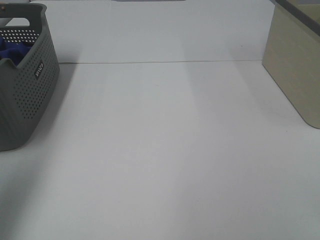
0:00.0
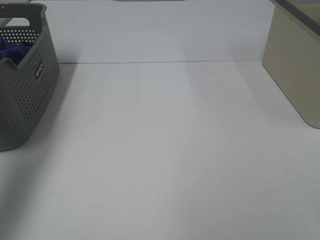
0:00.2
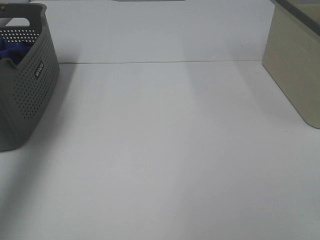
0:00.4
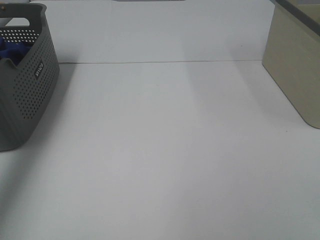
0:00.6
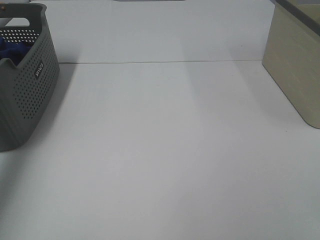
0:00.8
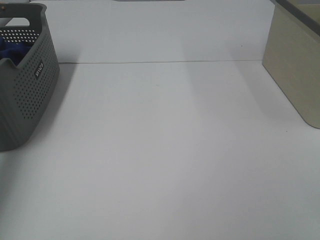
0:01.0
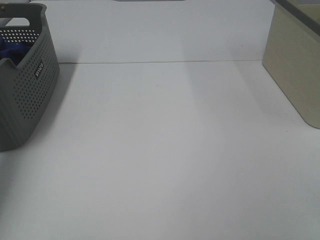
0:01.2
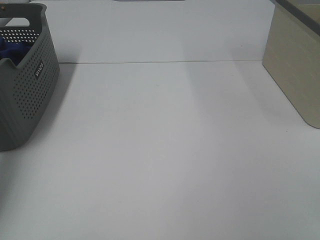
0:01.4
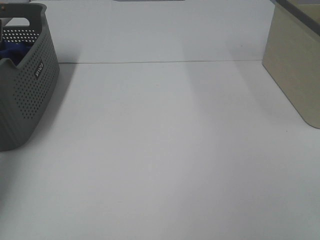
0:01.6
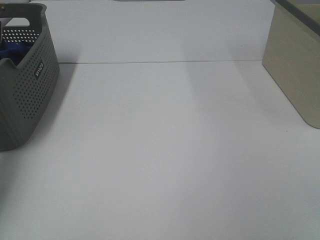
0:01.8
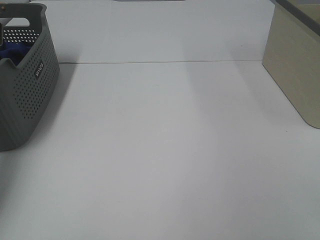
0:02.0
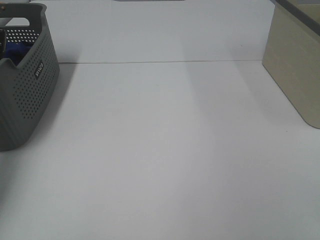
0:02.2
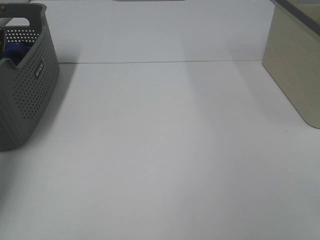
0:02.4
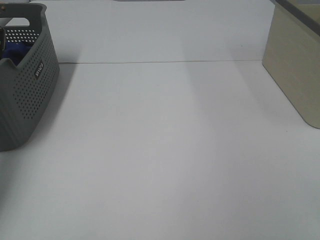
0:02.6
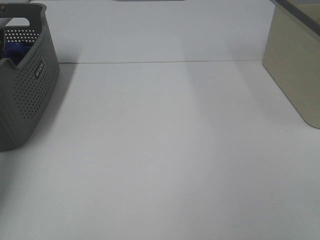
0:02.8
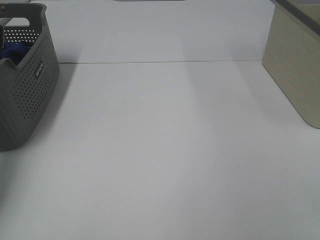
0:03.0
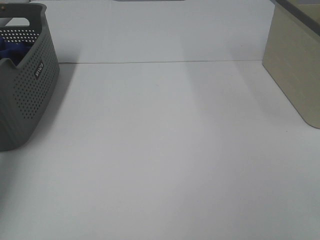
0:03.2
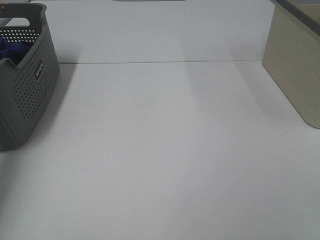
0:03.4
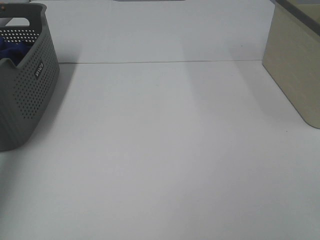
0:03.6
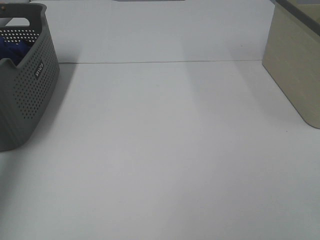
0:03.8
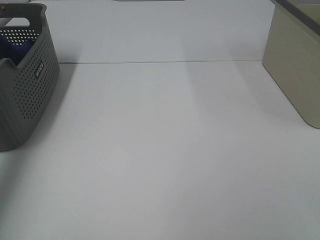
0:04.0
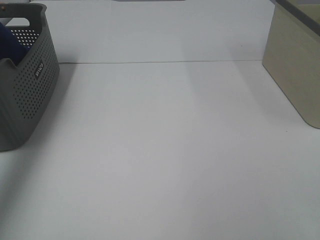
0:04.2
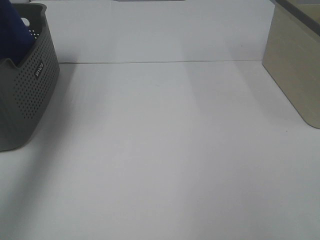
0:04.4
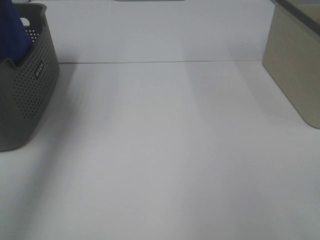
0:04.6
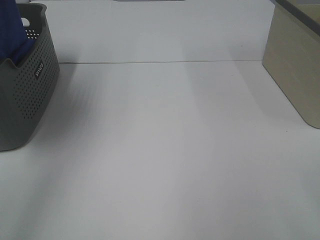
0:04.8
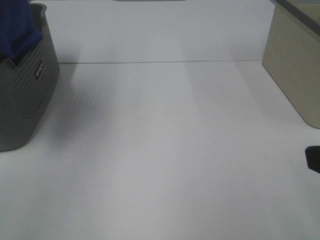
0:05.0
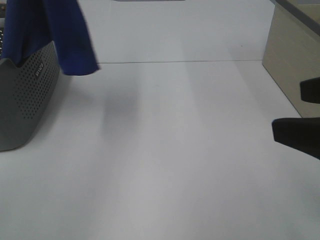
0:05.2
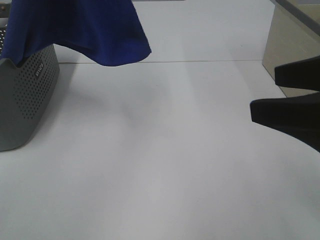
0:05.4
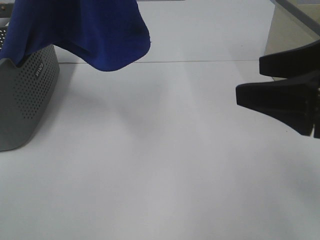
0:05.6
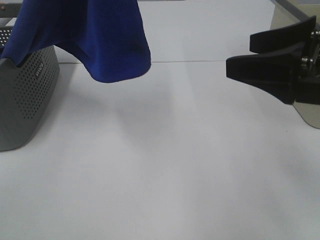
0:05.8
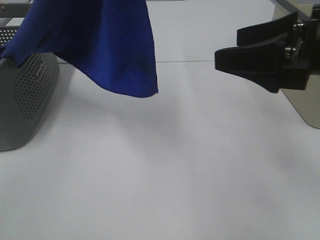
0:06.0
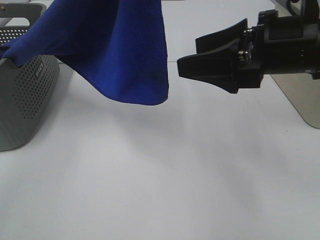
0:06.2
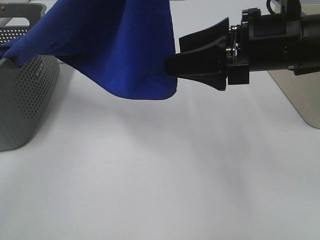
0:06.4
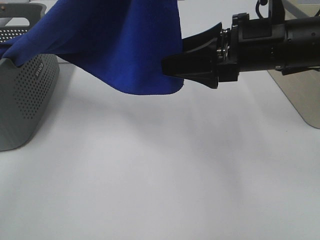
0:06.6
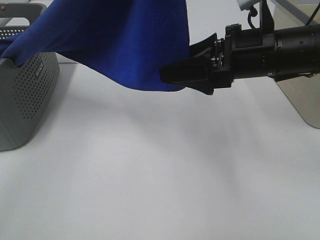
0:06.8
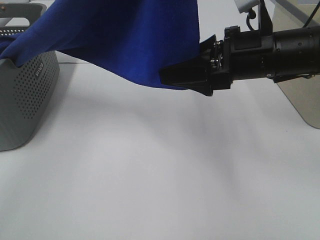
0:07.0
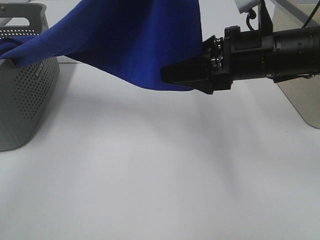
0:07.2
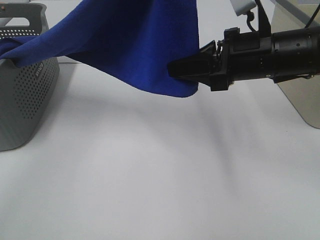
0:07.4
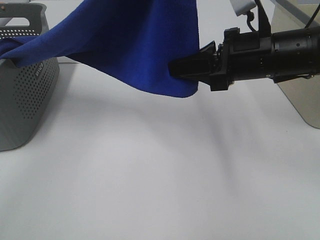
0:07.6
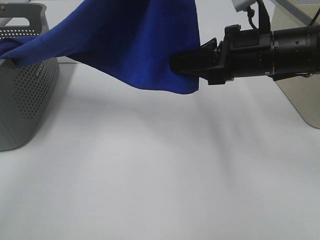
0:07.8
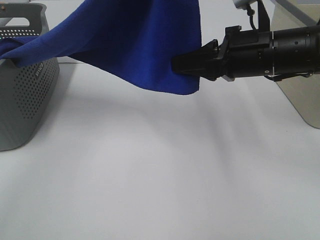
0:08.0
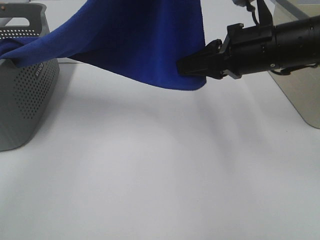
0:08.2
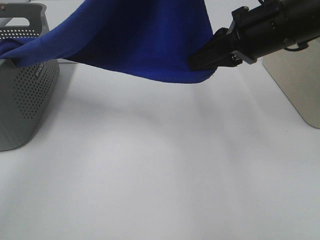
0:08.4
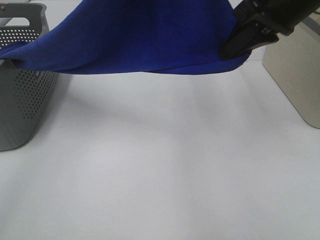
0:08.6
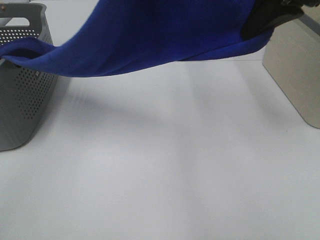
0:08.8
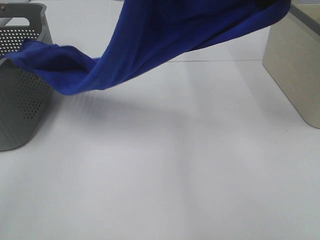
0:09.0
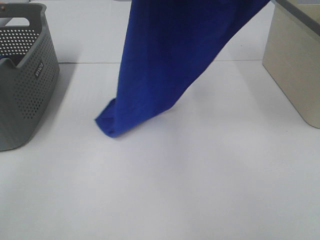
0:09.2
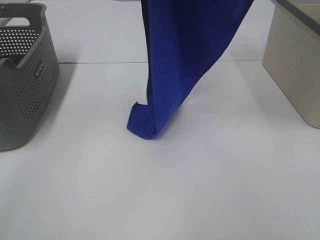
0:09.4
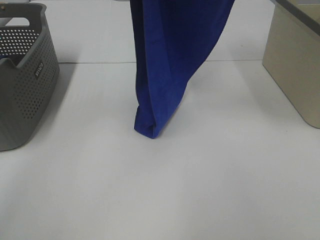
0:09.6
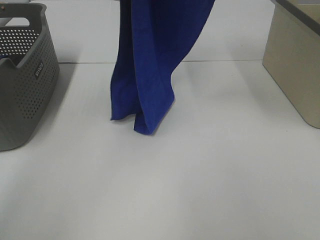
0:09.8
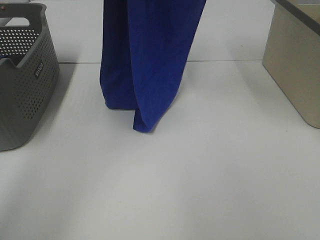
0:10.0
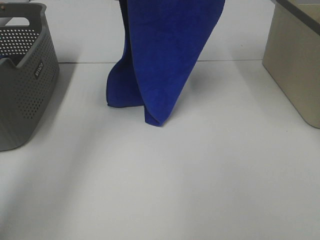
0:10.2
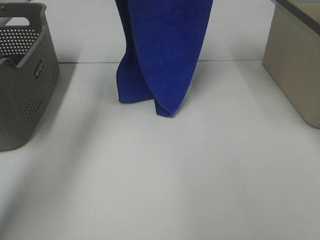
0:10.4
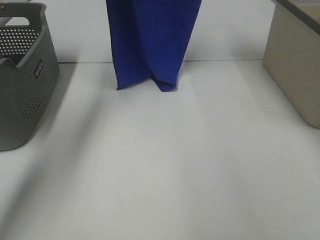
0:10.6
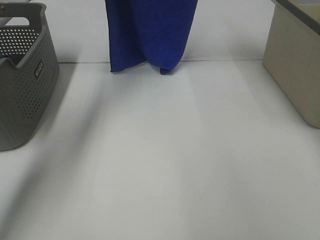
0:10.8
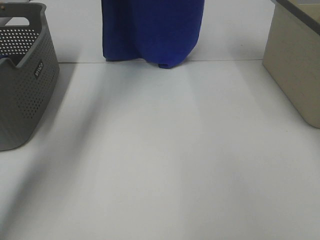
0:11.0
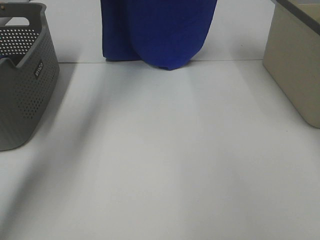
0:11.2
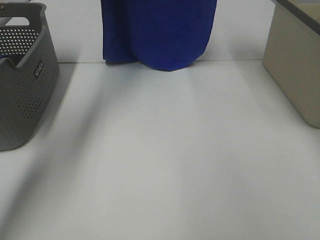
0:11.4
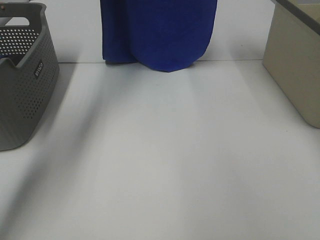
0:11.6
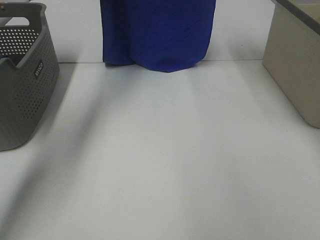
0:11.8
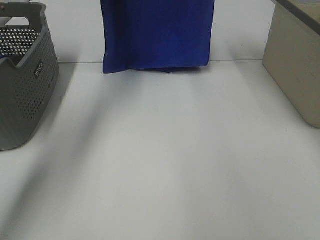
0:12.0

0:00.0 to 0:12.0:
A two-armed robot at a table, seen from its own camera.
Task of the whole recording: Remove the towel and place it.
Step, 0:04.0 to 0:08.2: Right hand: grab a corner of the blue towel and straighten it.
0:00.0 to 0:01.6: The left gripper is displaced forward and downward by some 30 cm.
0:03.0 to 0:04.4: The left gripper travels upward by some 25 cm.
0:04.4 to 0:06.0: The right gripper moves forward, about 20 cm. The left gripper shifts about 25 cm to the right and backward.
0:06.0 to 0:07.6: The right gripper moves forward, downward and to the left, about 10 cm, and closes its fingers. The left gripper ends up approximately 5 cm from where it was.
0:07.6 to 0:09.0: The right gripper travels upward by about 20 cm.
0:09.0 to 0:10.4: The right gripper travels forward by roughly 15 cm, while the left gripper shifts about 25 cm forward and to the left.
0:10.4 to 0:12.0: The left gripper changes place by about 5 cm.

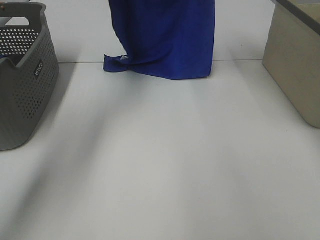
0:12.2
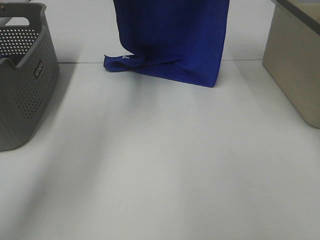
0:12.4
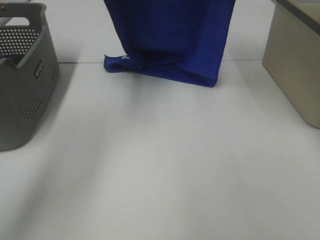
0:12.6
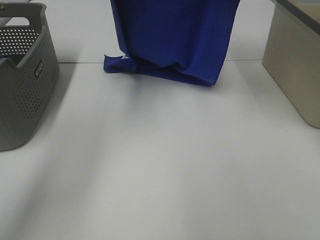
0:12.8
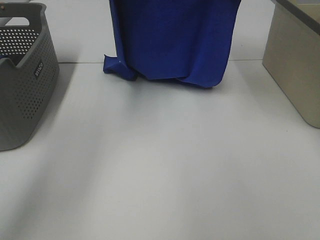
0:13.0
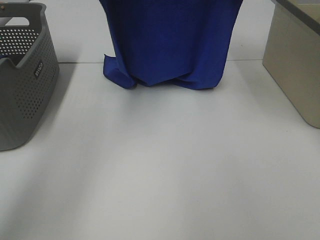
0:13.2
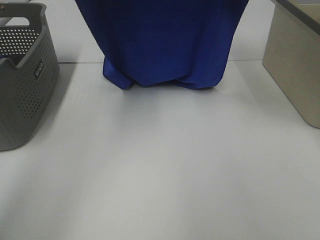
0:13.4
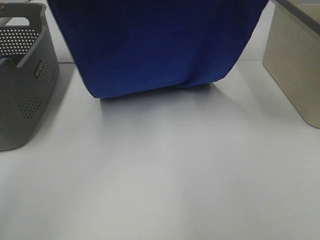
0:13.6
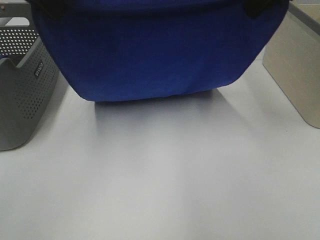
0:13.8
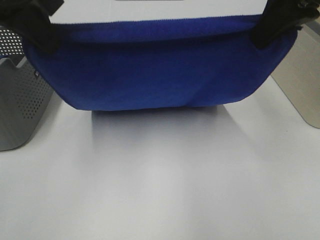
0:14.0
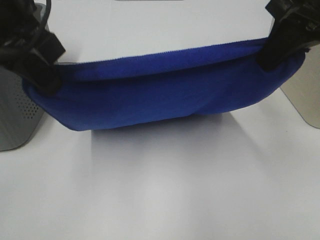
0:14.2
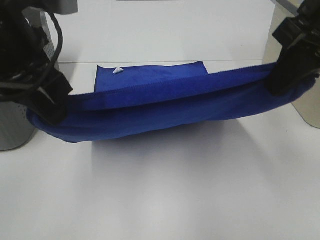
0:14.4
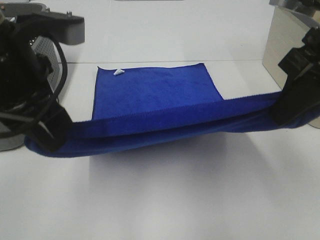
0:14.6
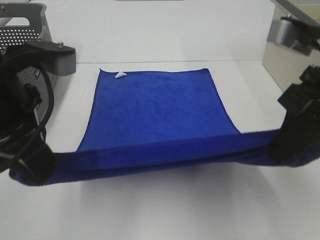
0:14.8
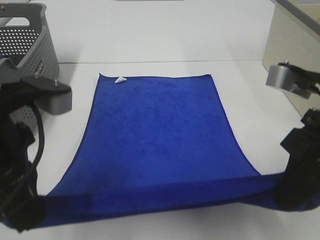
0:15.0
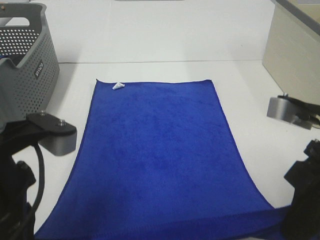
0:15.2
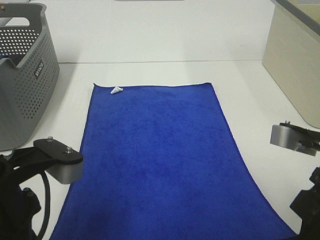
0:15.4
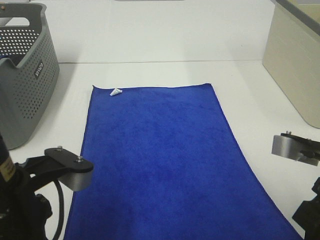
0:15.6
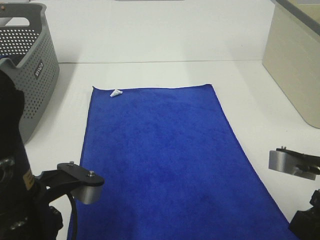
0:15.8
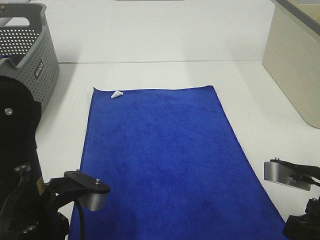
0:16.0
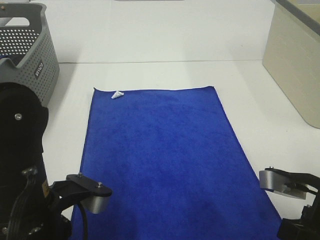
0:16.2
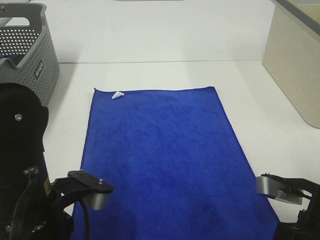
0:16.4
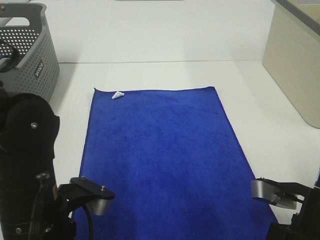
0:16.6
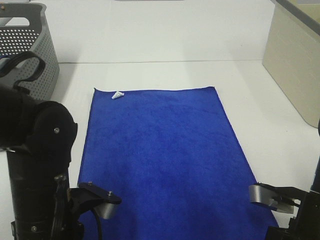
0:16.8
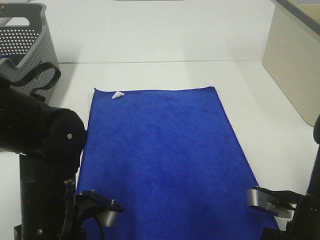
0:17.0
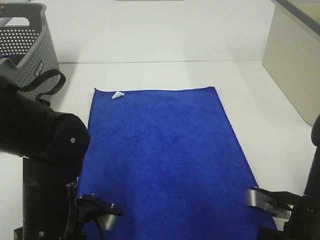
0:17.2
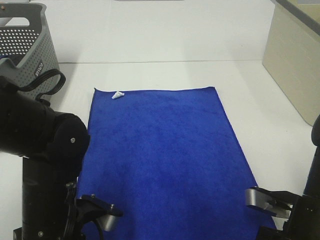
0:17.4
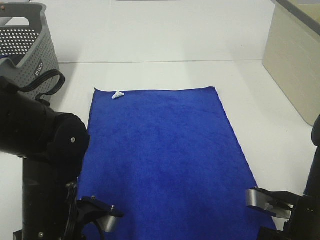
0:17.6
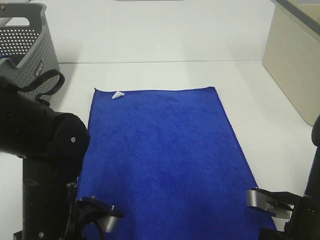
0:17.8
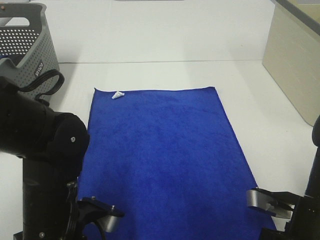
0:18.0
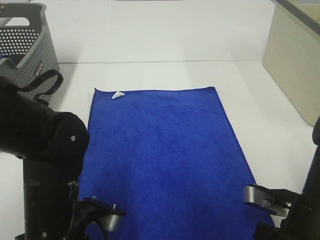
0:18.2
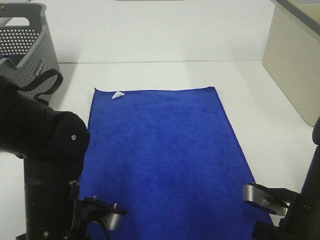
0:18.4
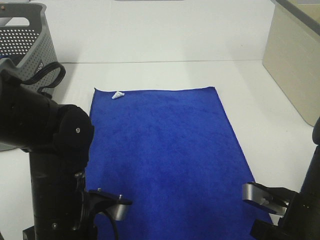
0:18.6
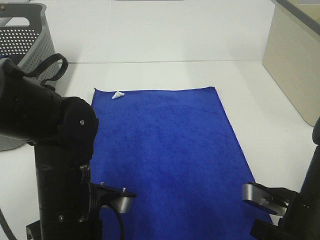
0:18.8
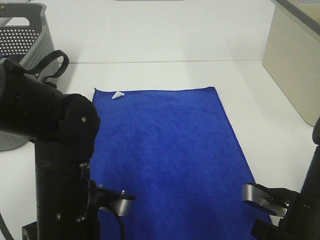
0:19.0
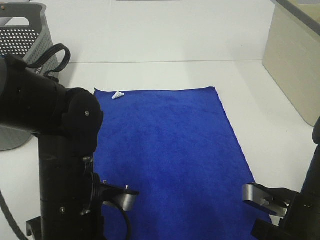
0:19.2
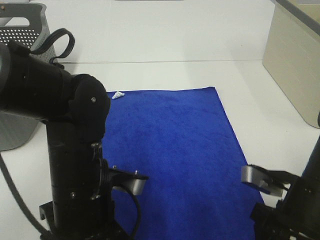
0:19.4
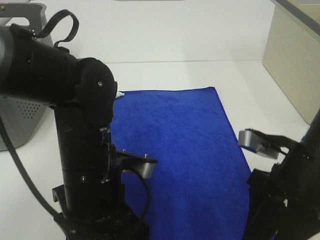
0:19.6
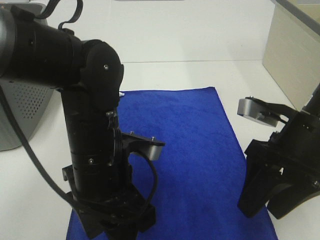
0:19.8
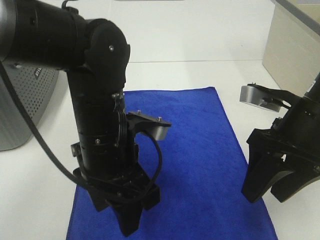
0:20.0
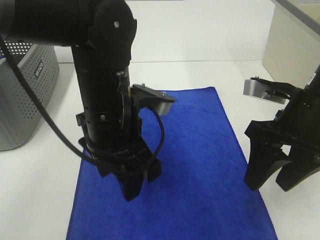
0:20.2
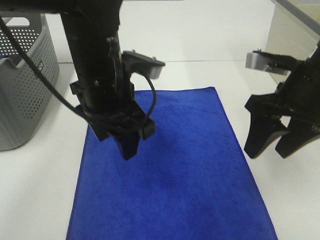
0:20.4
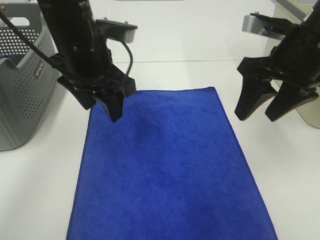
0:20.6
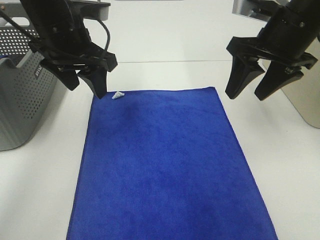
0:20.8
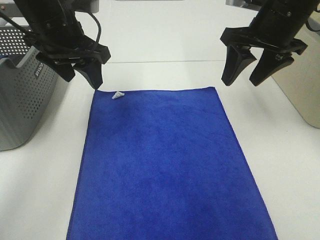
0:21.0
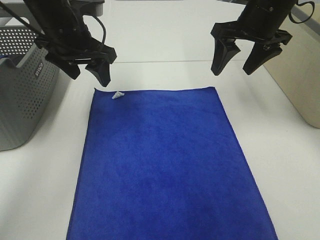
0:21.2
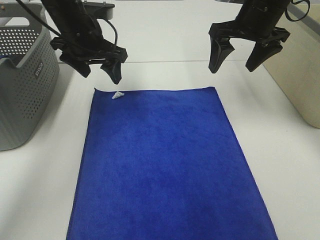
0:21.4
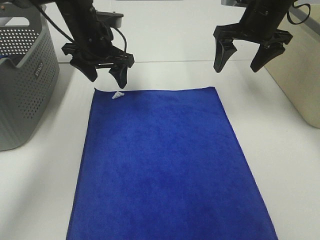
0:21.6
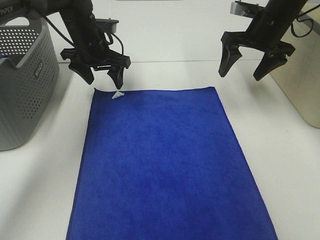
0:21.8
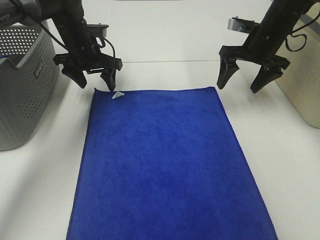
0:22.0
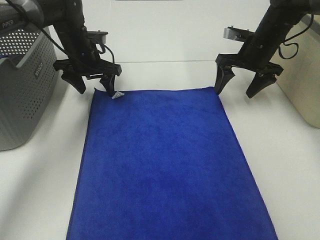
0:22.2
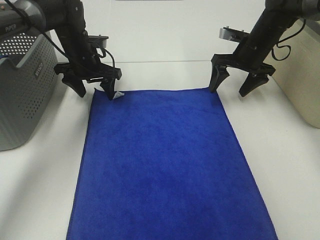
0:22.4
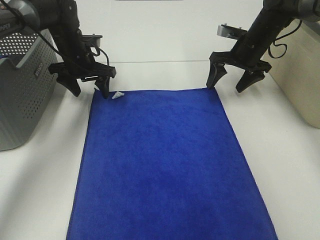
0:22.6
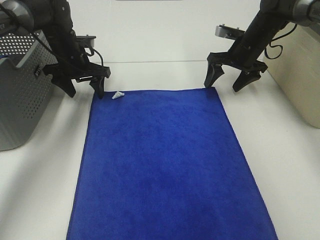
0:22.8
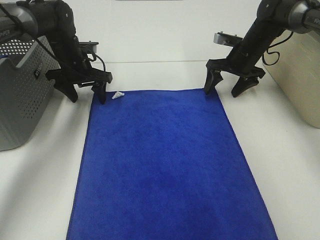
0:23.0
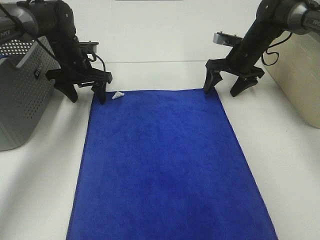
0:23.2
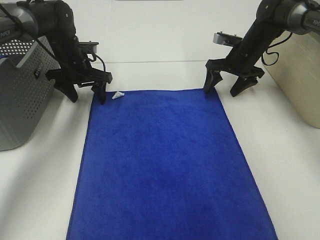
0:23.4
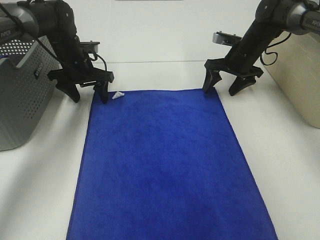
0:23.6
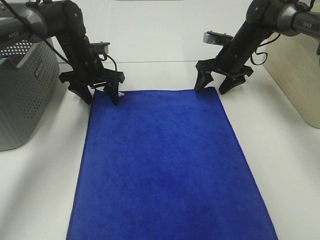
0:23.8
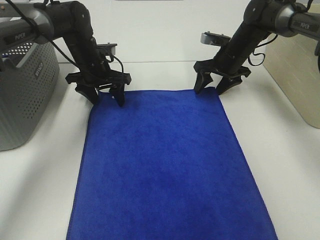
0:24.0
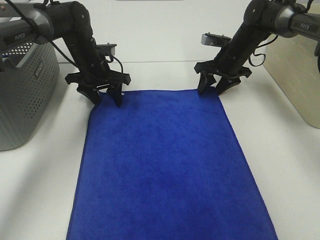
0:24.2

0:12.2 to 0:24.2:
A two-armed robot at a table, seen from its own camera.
Task of the whole recording: Remove the towel and place it.
Step, 0:14.2 to 0:21.6: Left hand:adjust the blue towel.
Step, 0:14.2 to 0:21.6: Right hand:adjust the blue towel.
0:12.2 to 0:13.8: The grippers both shift backward by about 20 cm.
0:13.8 to 0:15.2: The right gripper travels downward and backward by about 20 cm. Meanwhile the left gripper goes approximately 20 cm backward and downward.
0:15.2 to 0:16.6: The grippers both shift downward by approximately 10 cm.
0:16.6 to 0:18.2: There are only small adjustments of the grippers.
0:18.2 to 0:19.8: The right gripper moves upward and forward, some 10 cm, and opens. The left gripper travels forward and upward by approximately 10 cm, and opens its fingers.
0:19.8 to 0:21.2: The left gripper shifts approximately 20 cm forward and to the left. The right gripper is displaced forward by roughly 20 cm.
0:21.2 to 0:22.6: The grippers both shift downward and forward by roughly 15 cm.
0:22.6 to 0:24.2: There are only small adjustments of the grippers.
